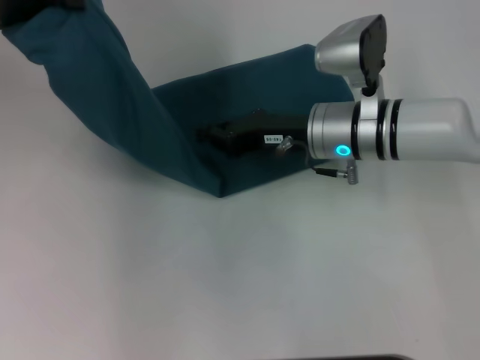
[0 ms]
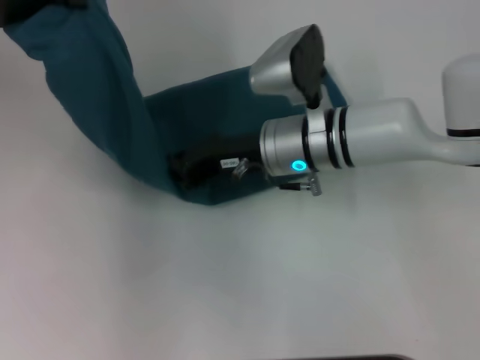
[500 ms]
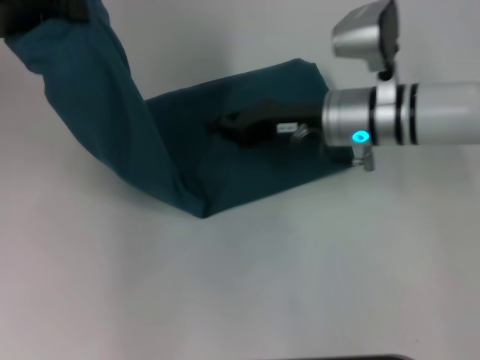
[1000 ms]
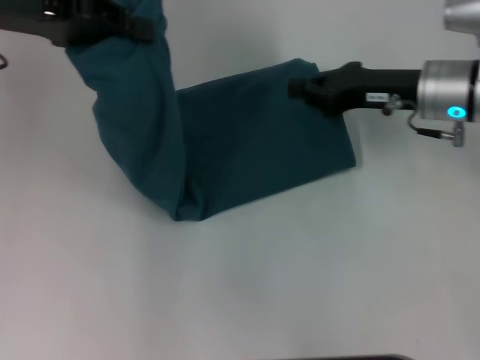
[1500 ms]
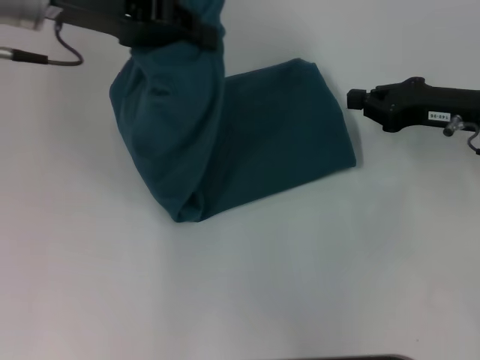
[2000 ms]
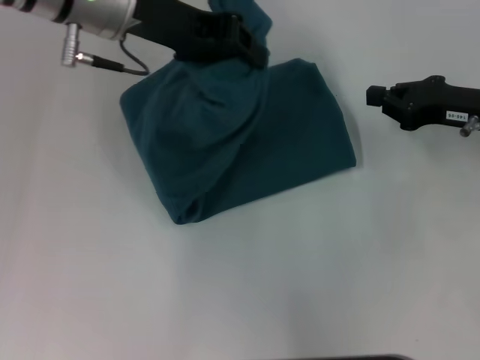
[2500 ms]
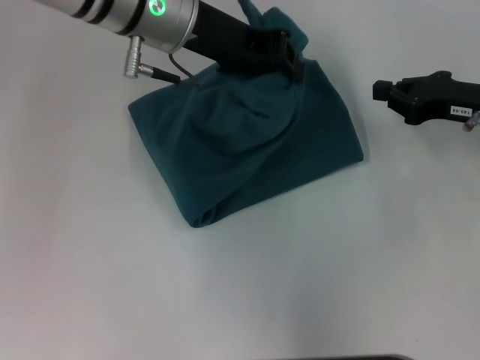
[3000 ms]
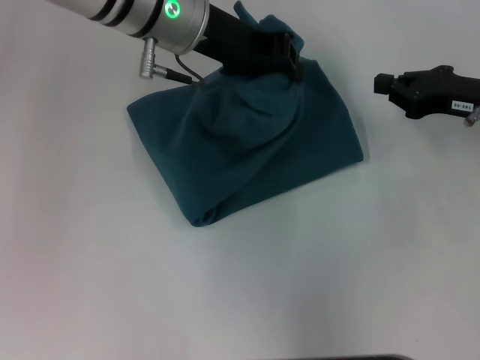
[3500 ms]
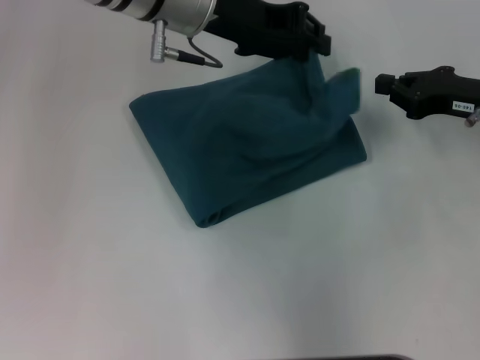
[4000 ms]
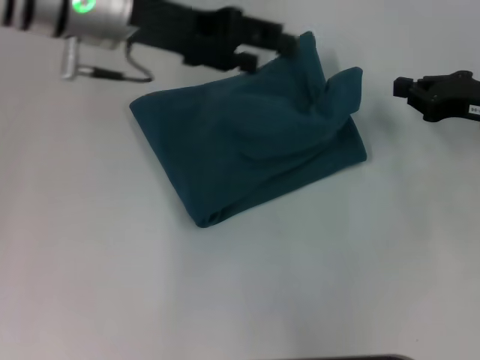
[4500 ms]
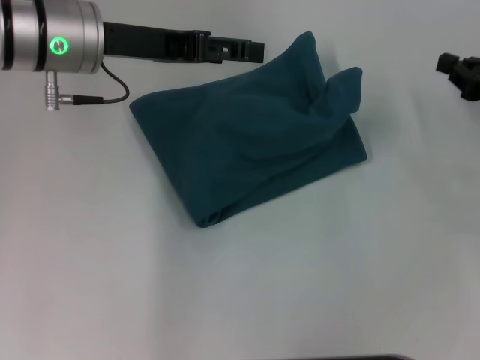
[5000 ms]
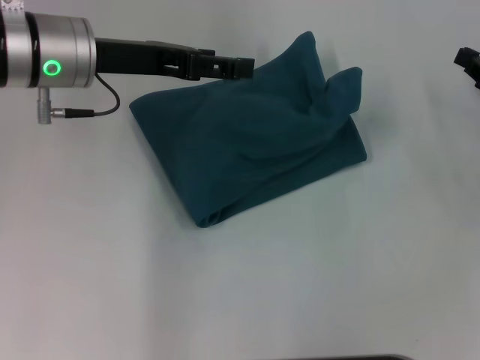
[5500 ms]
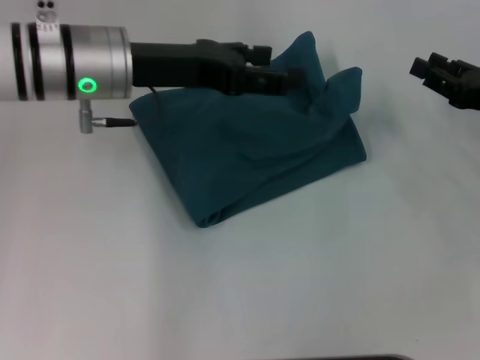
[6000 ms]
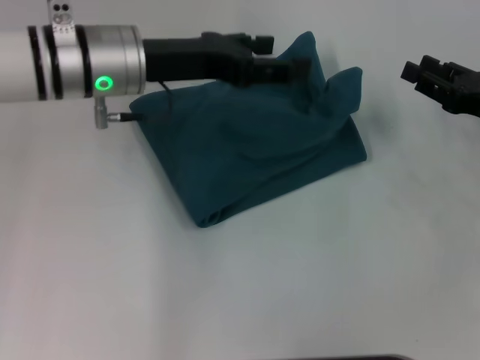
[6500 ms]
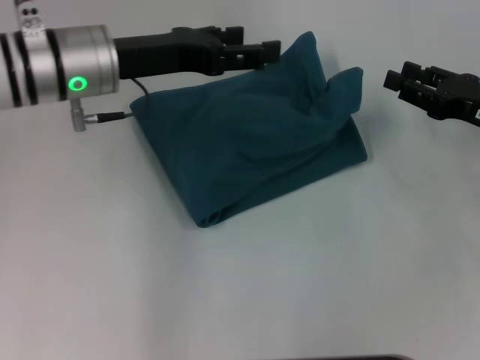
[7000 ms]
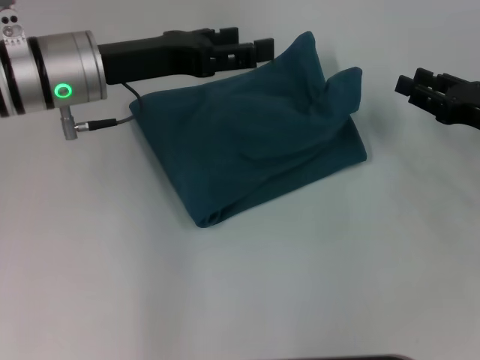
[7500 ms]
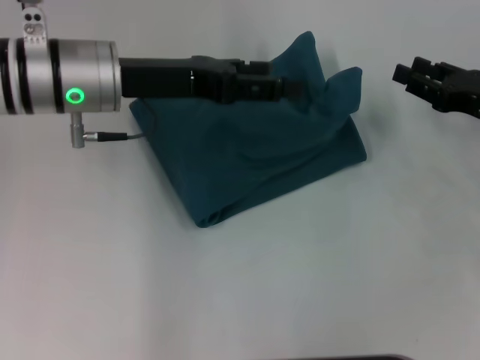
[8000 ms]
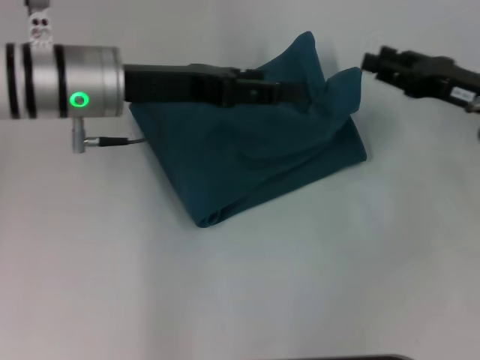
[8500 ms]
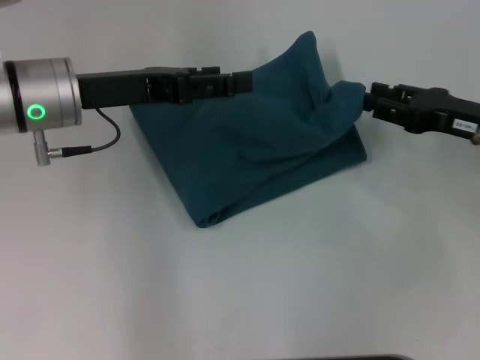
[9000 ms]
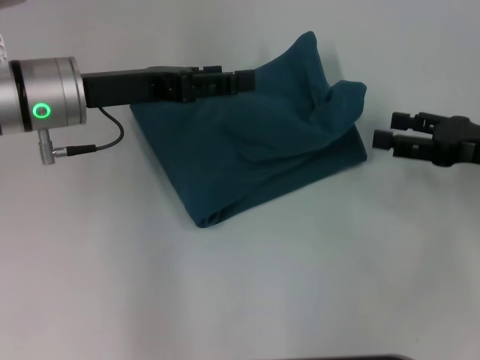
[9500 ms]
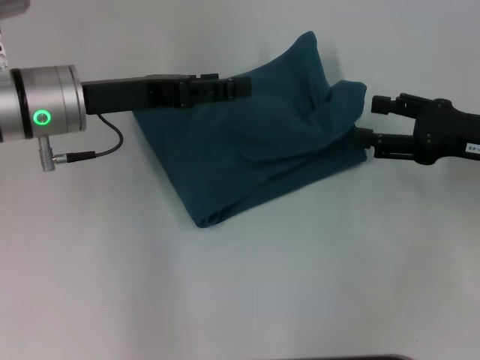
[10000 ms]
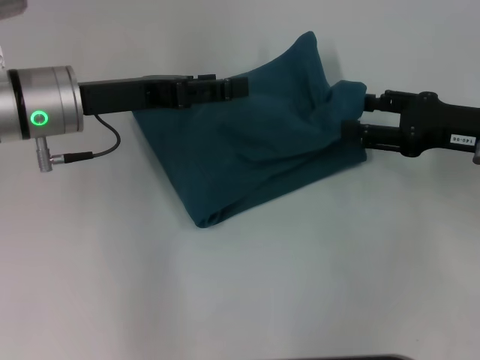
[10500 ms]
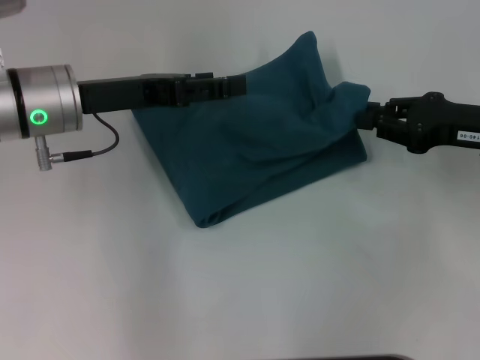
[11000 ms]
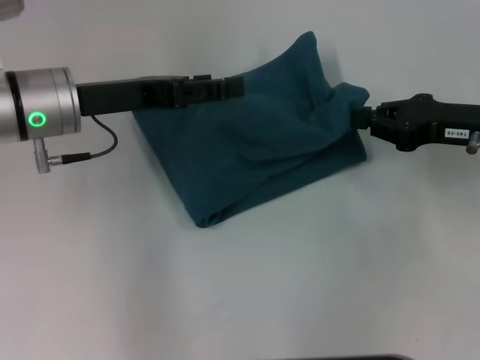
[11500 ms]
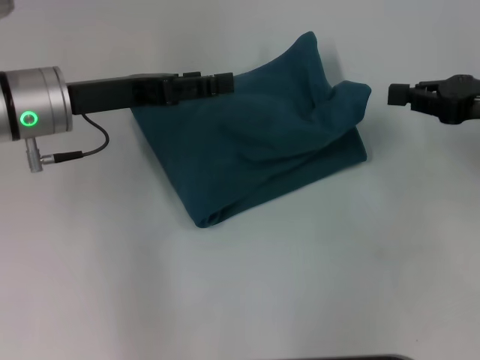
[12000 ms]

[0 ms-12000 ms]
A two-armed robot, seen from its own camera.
Step, 1000 ms to 4500 ms: Fold the clothes to the left.
0 ms to 2000 ms: The two grippers go some 15 cm to the right.
2000 ms to 4000 ms: The left gripper shifts approximately 10 cm to the right.
4000 ms to 6000 ms: The left gripper heads to the left, covering roughly 5 cm, and opens.
6000 ms to 8000 ms: The grippers make only small movements.
8000 ms to 10000 ms: The right gripper opens up.
10000 ms to 12000 ms: The right gripper closes up.

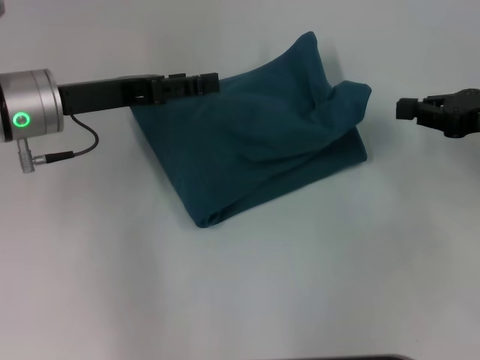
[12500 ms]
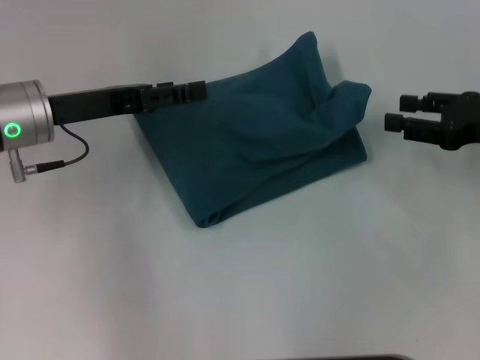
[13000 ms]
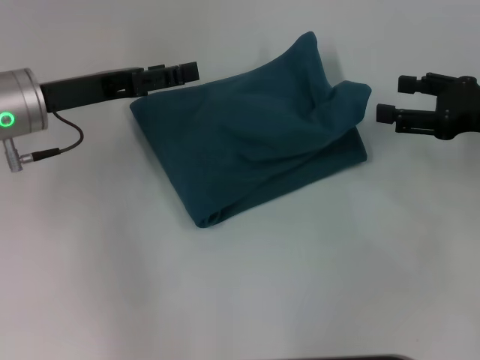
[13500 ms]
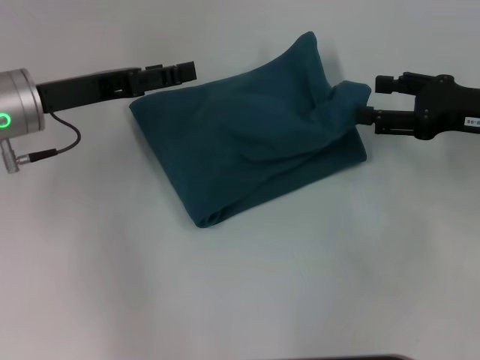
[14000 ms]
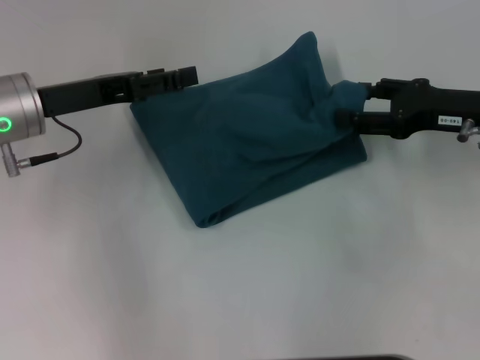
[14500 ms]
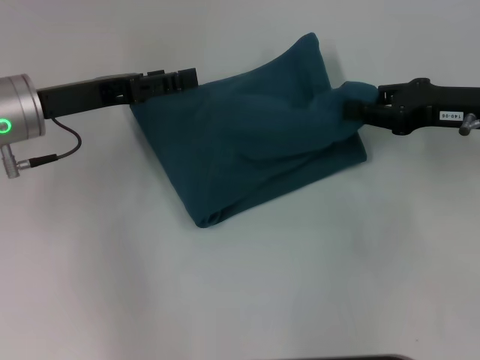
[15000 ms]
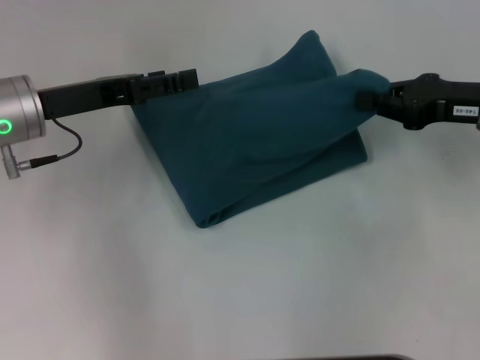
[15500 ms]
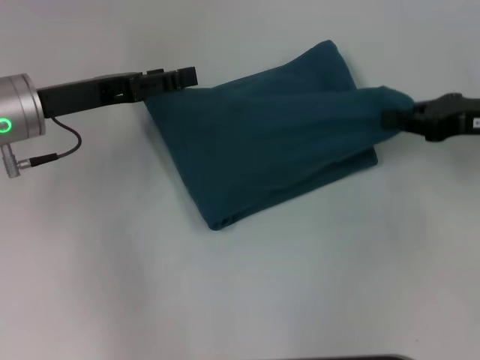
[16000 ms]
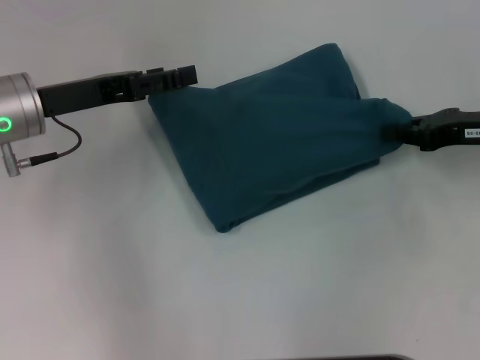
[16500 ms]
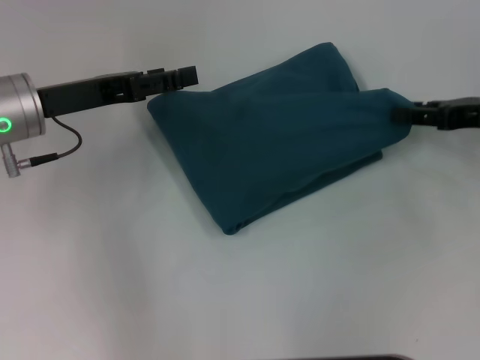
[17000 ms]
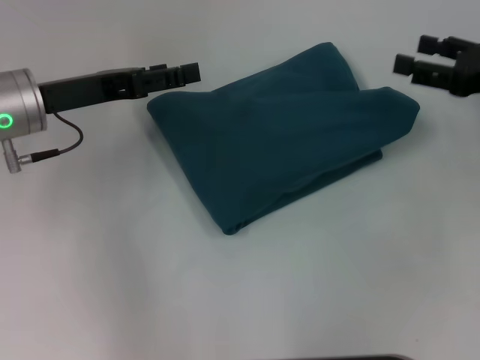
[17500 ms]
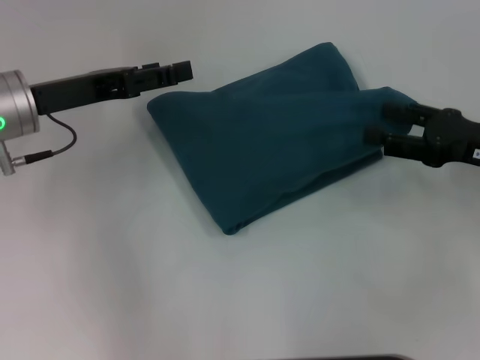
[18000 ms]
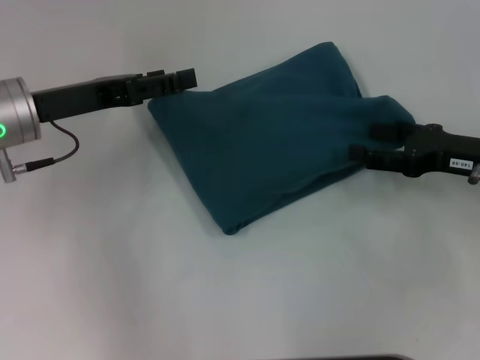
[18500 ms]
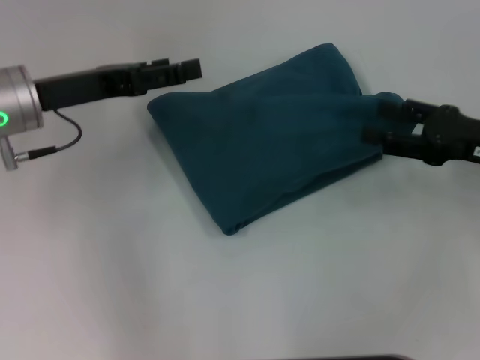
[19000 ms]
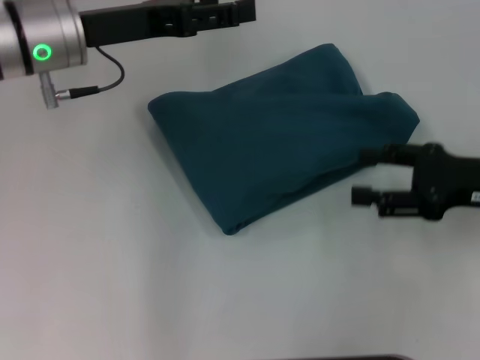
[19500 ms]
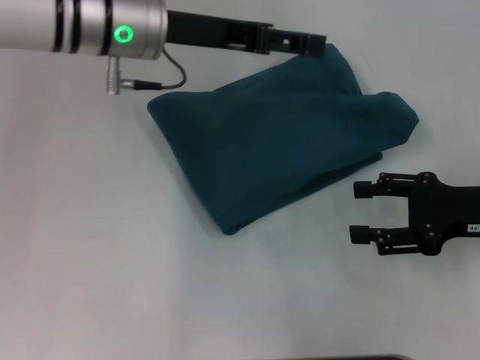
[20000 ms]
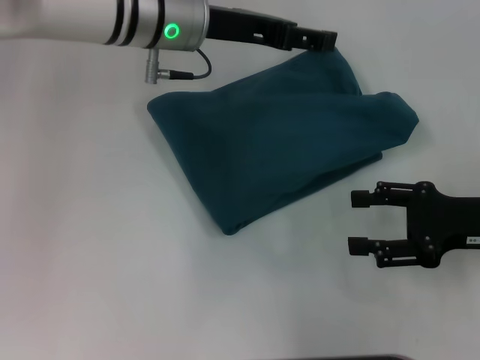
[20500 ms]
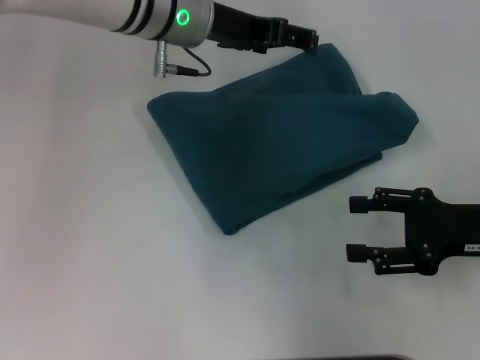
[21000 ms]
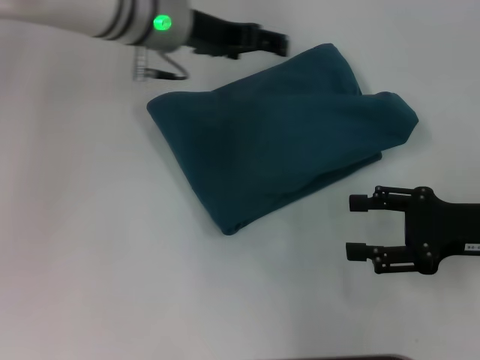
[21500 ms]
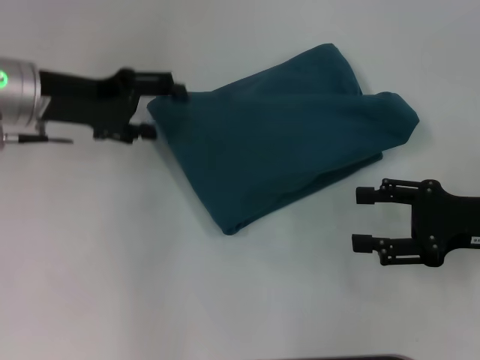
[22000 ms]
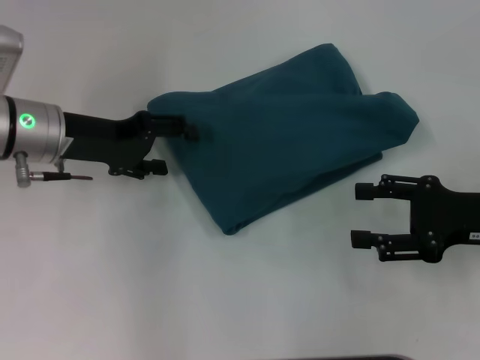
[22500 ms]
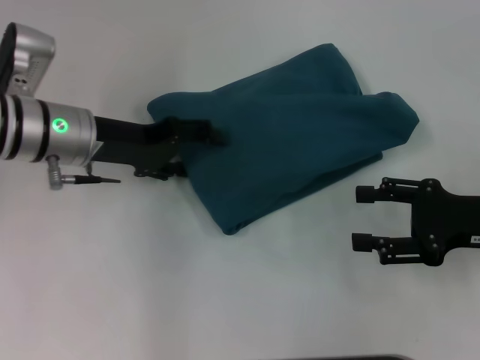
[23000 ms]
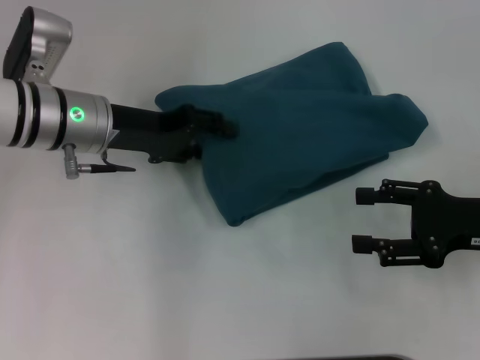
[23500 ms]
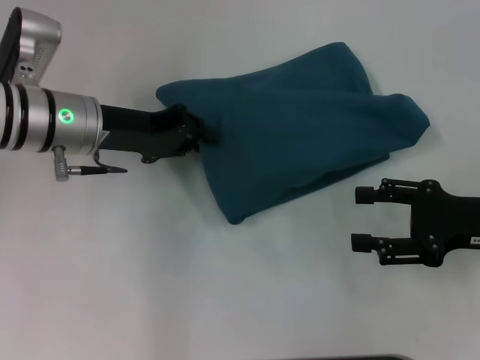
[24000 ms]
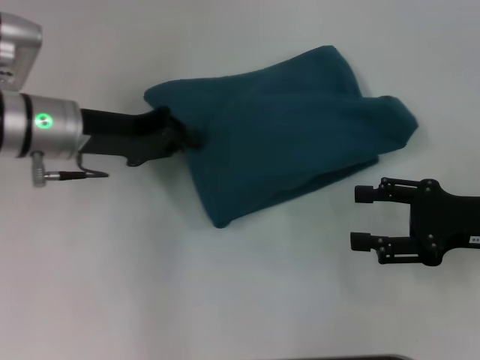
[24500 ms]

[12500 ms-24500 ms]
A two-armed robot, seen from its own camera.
12500 ms to 14500 ms: The right gripper changes place by some 5 cm, and opens up.
14500 ms to 16500 ms: The right gripper closes.
16500 ms to 18500 ms: The right gripper opens up.
18500 ms to 20500 ms: The right gripper moves approximately 5 cm, while the left gripper shifts approximately 15 cm to the right and forward.
20500 ms to 22500 ms: The left gripper goes roughly 15 cm to the left, downward and backward.
22500 ms to 24500 ms: The left gripper closes.

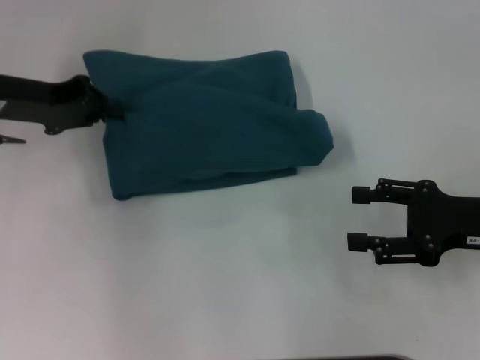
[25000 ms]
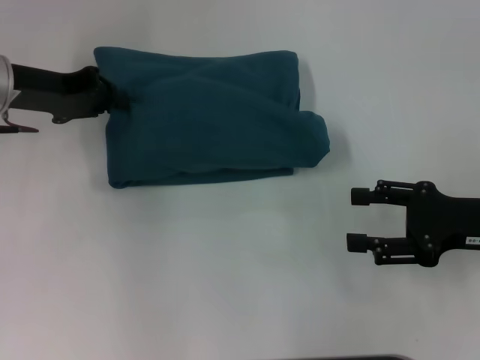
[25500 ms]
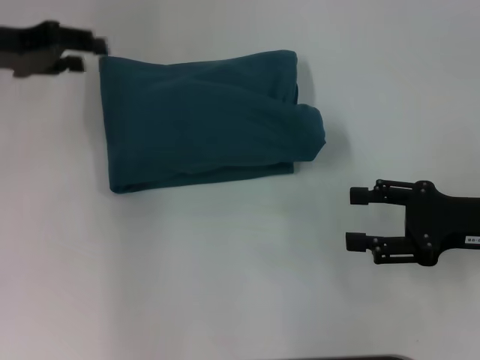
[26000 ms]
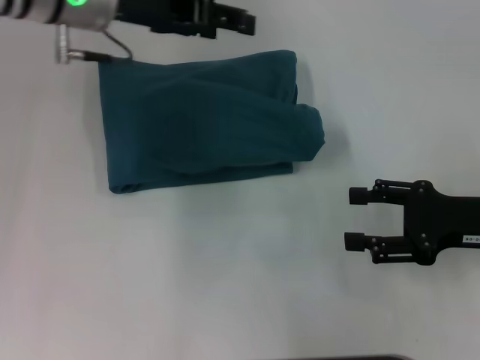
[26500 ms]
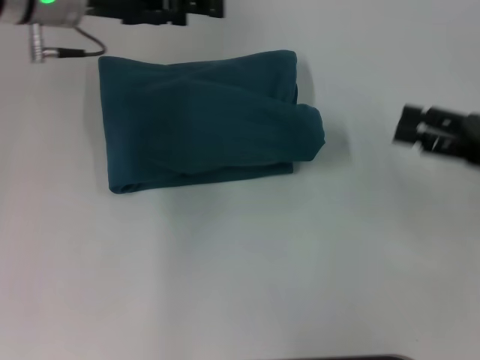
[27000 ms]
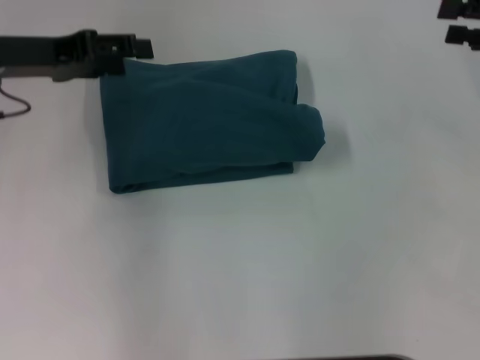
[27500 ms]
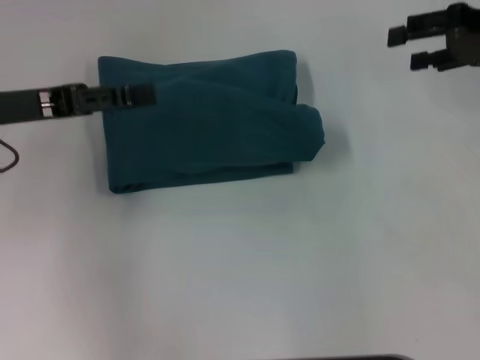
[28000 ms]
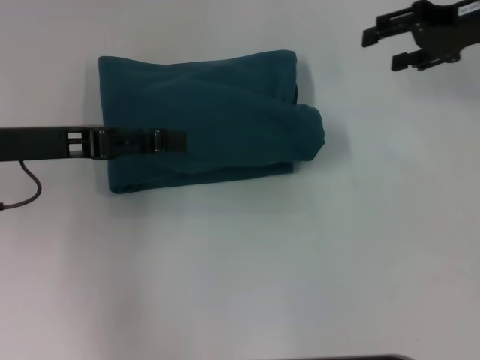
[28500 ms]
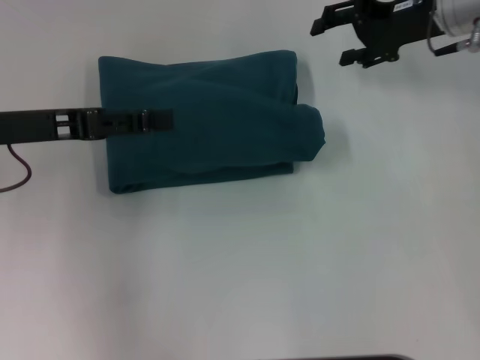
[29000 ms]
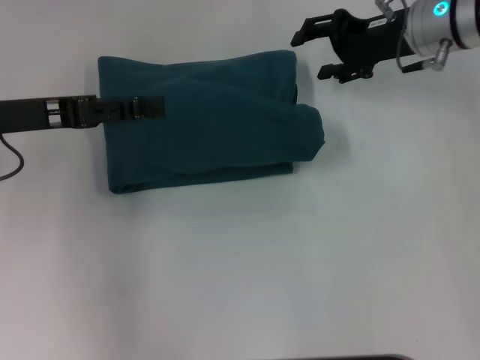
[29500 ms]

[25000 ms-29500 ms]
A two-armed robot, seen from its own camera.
25000 ms to 27000 ms: The left gripper travels to the right and upward by roughly 10 cm, and opens.
27000 ms to 29500 ms: The left gripper travels backward and to the left by approximately 15 cm. Meanwhile the right gripper is displaced forward and to the left by approximately 20 cm.
